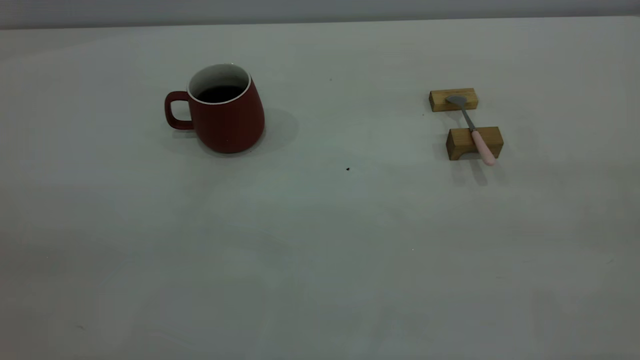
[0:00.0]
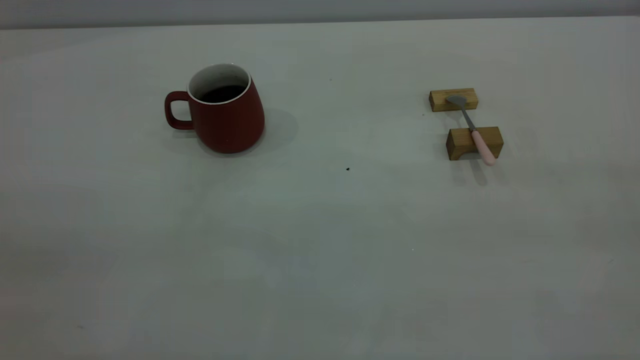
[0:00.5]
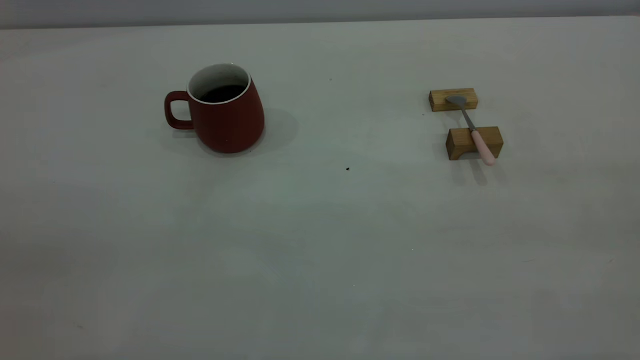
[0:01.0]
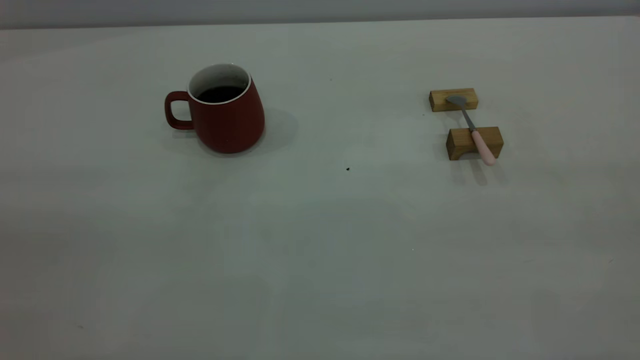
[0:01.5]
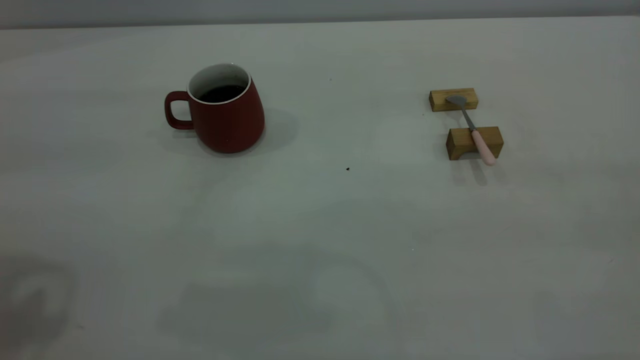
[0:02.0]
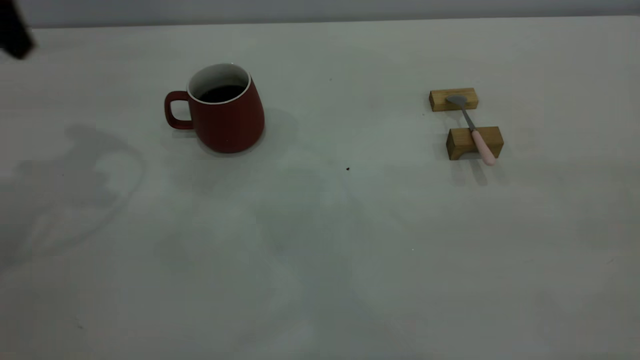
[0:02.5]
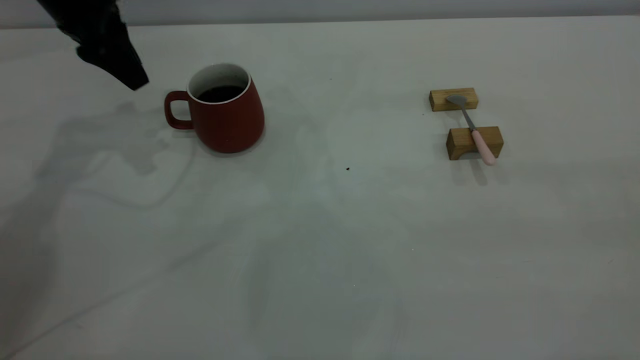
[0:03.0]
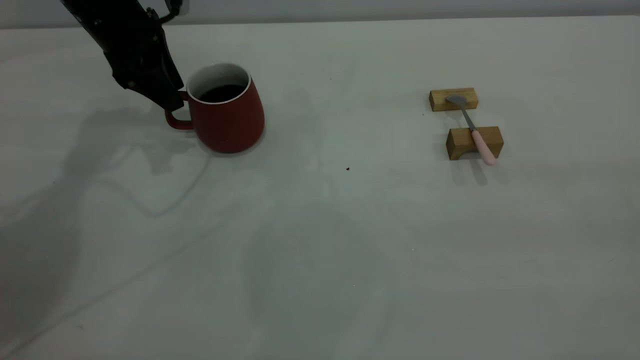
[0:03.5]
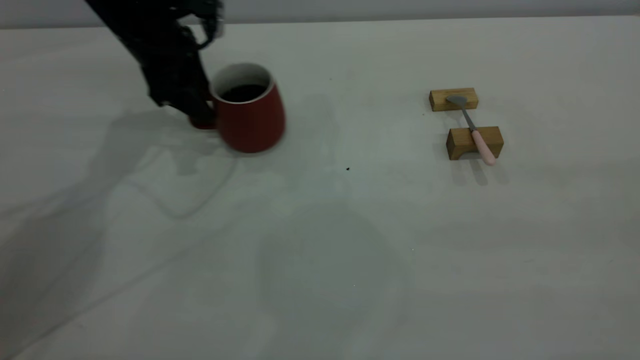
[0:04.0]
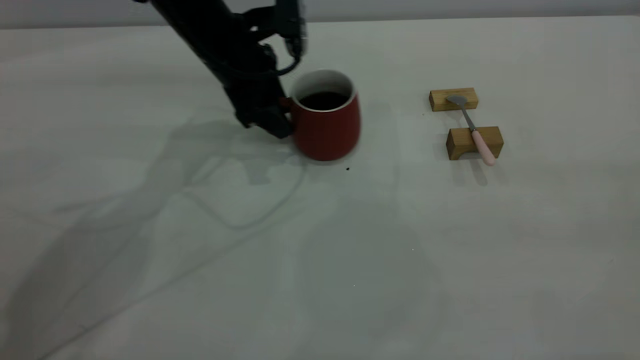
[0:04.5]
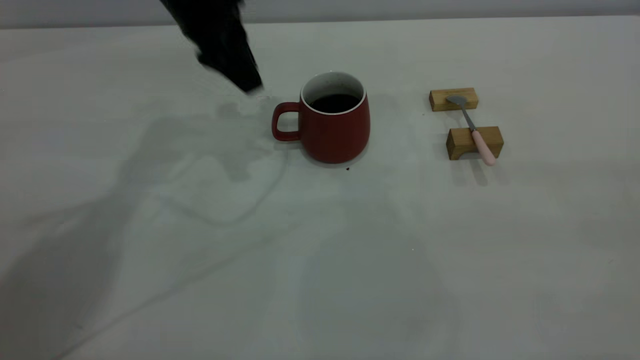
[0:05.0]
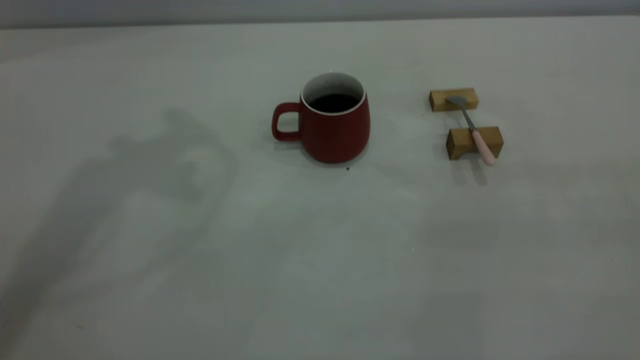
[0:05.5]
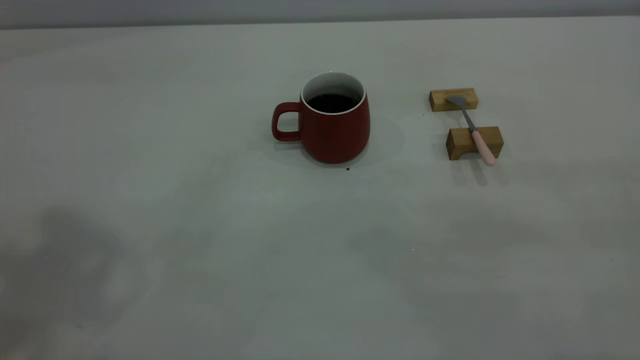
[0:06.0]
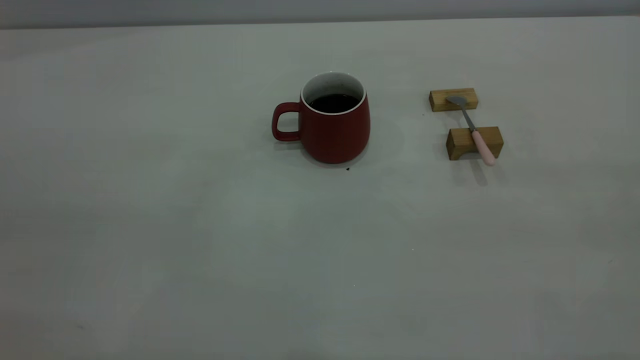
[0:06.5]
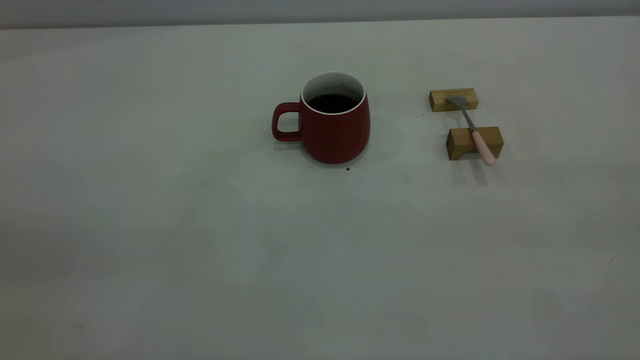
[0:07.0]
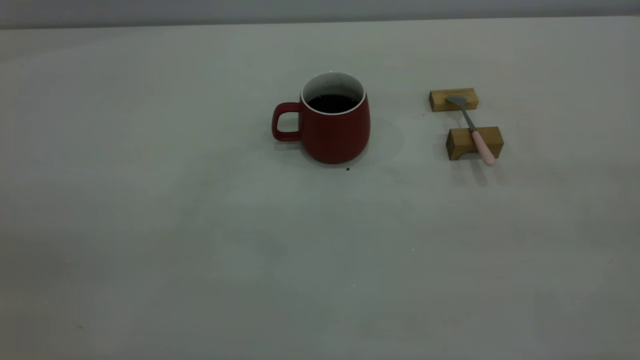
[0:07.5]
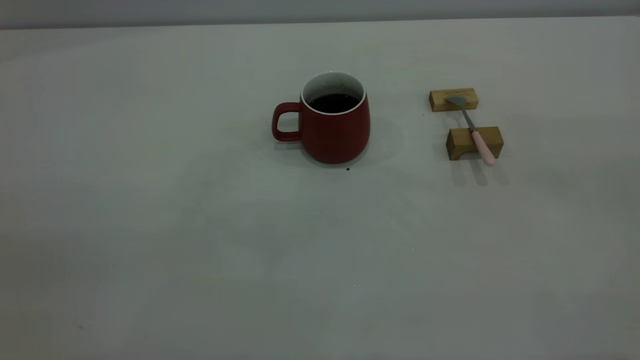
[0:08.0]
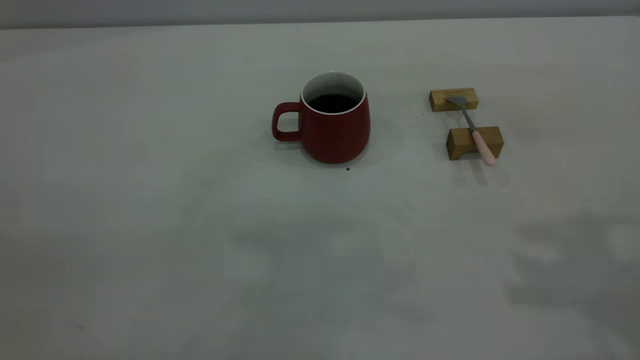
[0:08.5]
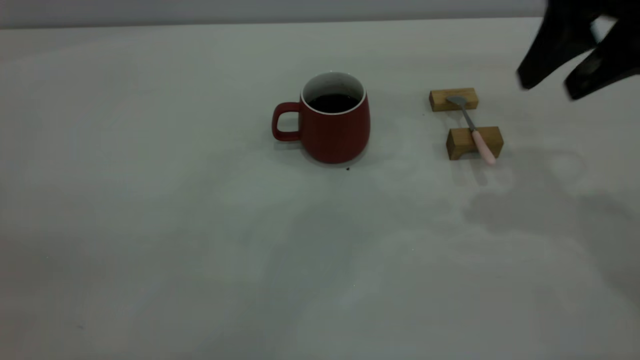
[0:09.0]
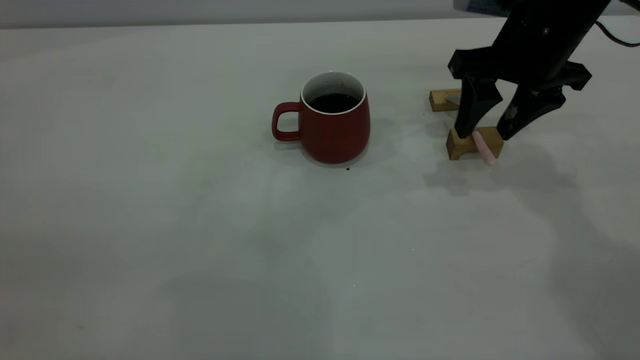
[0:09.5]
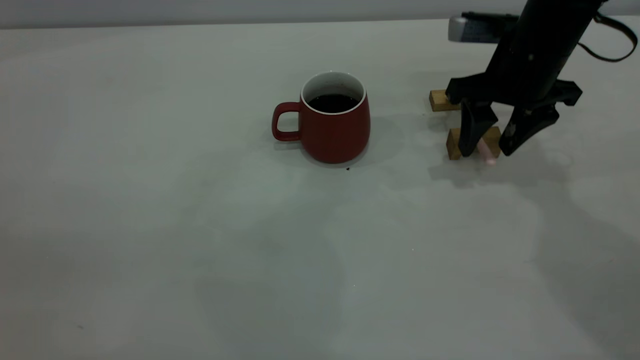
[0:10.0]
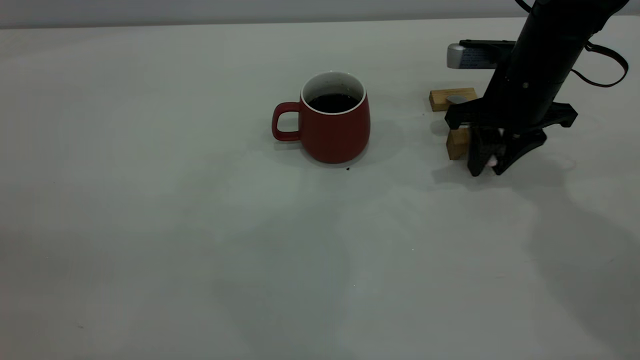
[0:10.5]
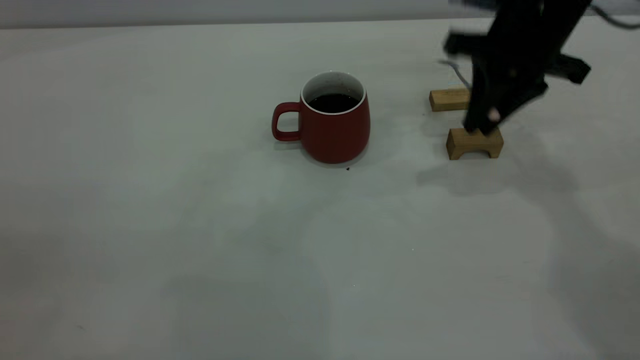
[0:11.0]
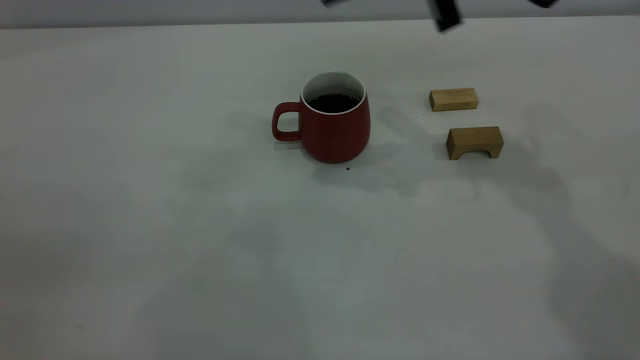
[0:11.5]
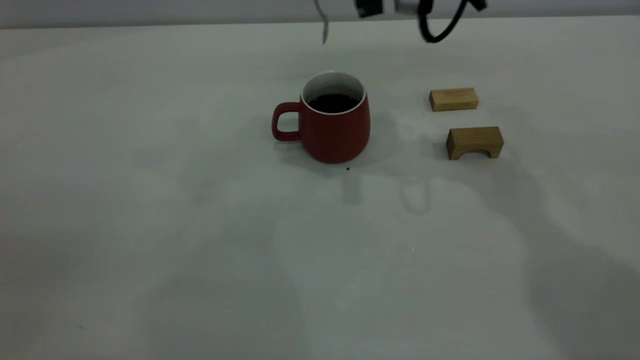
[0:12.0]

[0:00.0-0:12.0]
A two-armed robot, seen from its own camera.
Step, 0:00.0 to 0:05.0: Move the cup with coffee to the center of view.
Step, 0:05.5 to 0:10.5: Pick up the spoon.
0:02.0 to 0:04.0: The left gripper goes roughly 35 cm forward and downward.
0:04.0 to 0:06.0: The left gripper moves upward and backward, about 50 cm.
0:08.0 to 0:10.0: The right gripper heads forward and downward, covering approximately 40 cm.
0:10.0 to 0:12.0: The right gripper heads upward and to the left, covering roughly 15 cm, and closes.

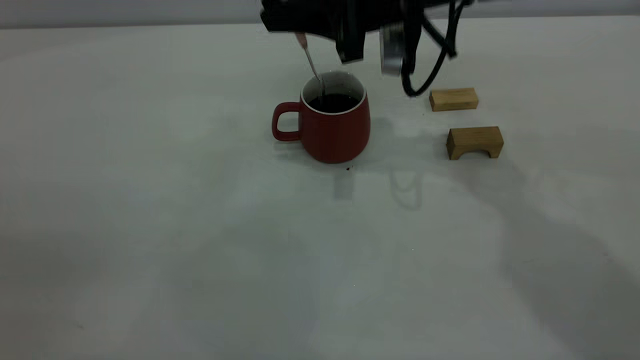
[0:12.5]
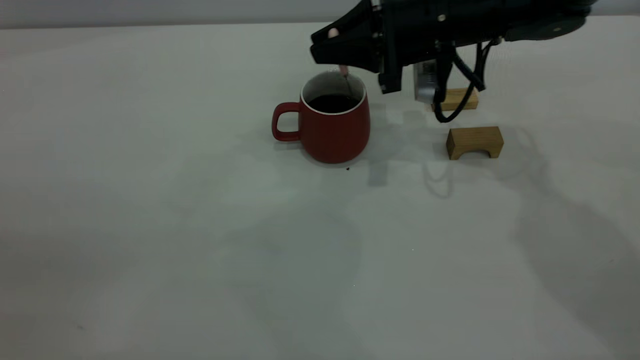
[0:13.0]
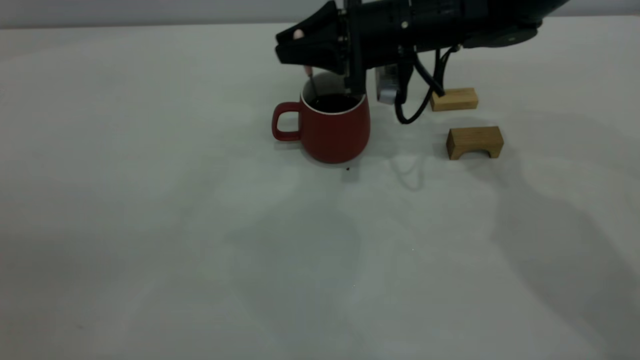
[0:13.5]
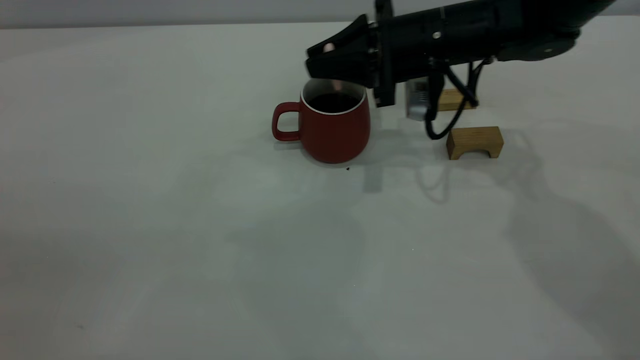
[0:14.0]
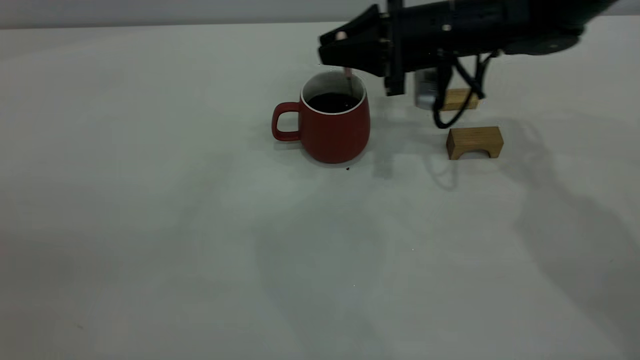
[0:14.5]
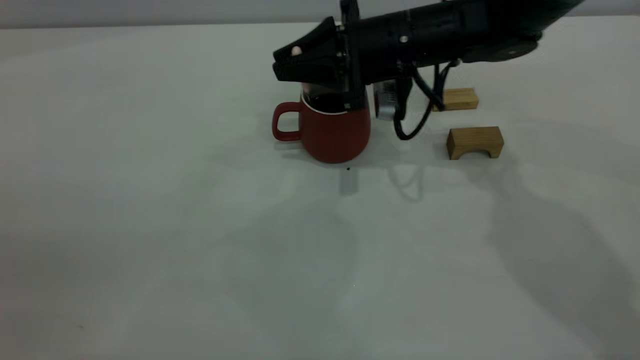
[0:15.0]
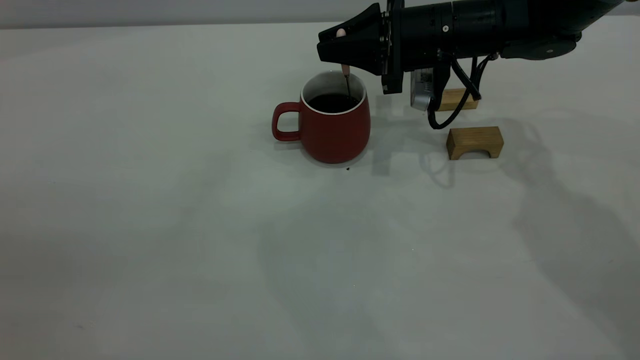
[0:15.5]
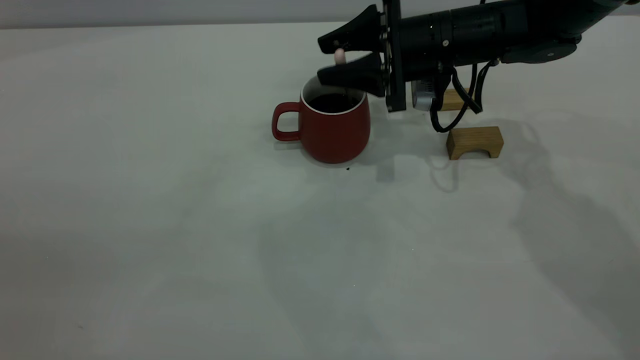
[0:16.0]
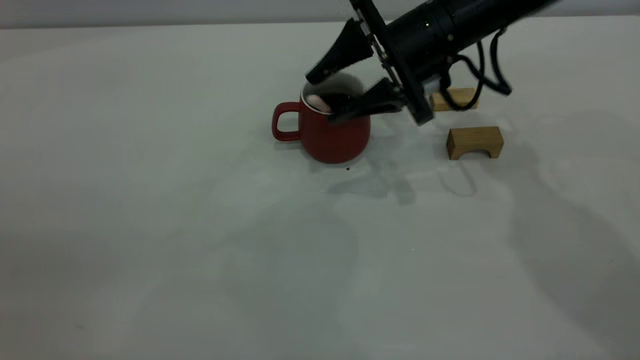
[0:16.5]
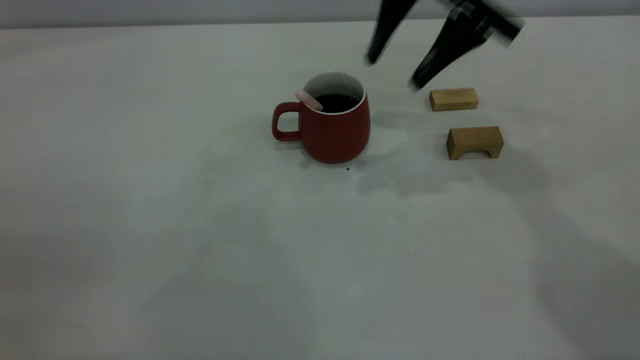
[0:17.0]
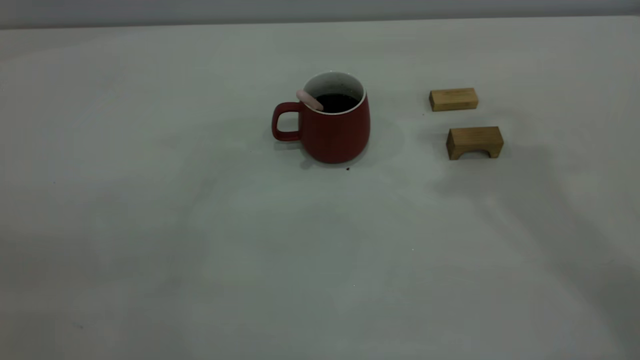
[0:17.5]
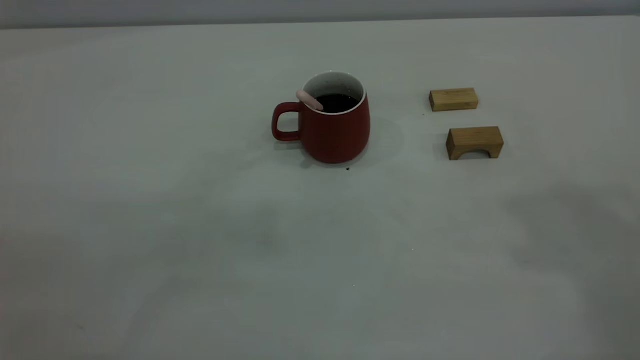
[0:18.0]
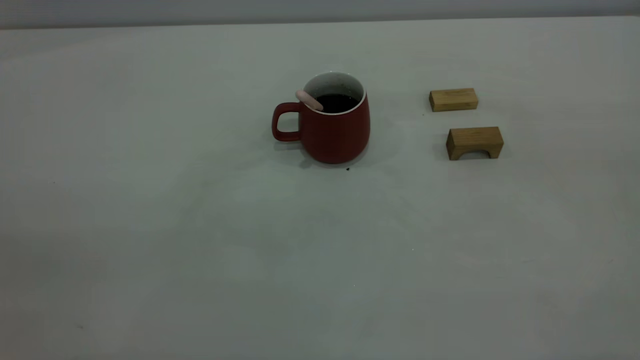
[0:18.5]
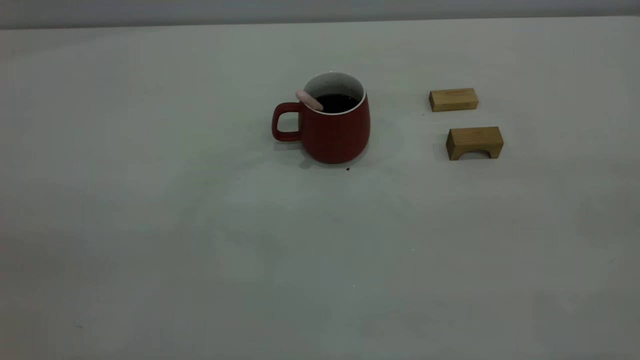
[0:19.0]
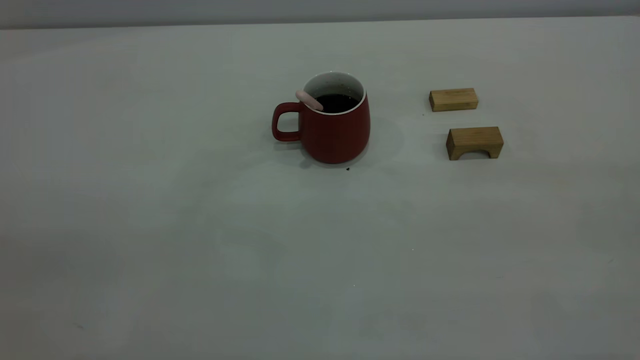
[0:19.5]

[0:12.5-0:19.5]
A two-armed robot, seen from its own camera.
Step, 0:12.5 to 0:16.5: Stir the coffee in the cup.
0:12.5 to 0:14.5: The right gripper shifts roughly 10 cm downward and to the right.
0:14.5 to 0:16.0: The right gripper opens its fingers.
0:16.0 to 0:17.5: The right gripper is displaced upward by about 35 cm.
